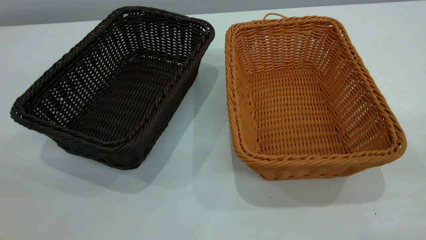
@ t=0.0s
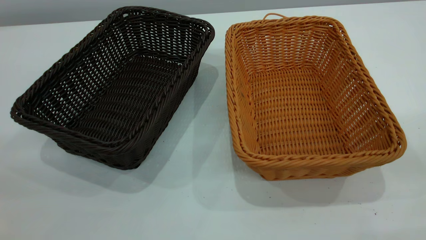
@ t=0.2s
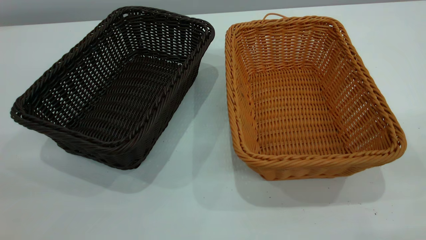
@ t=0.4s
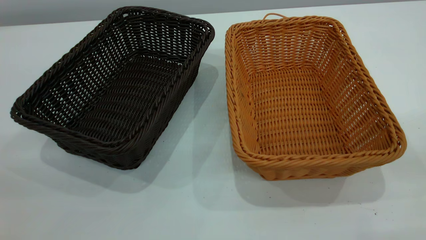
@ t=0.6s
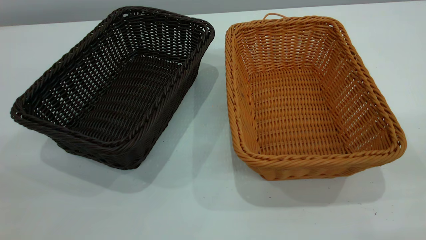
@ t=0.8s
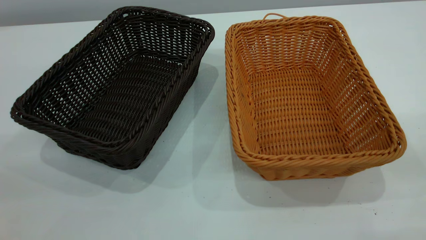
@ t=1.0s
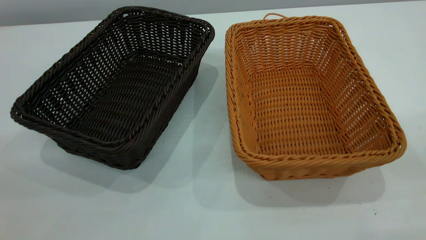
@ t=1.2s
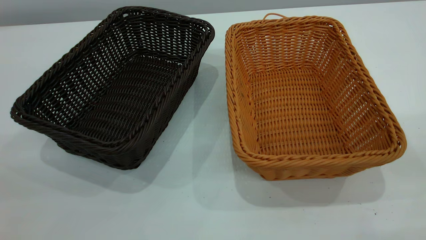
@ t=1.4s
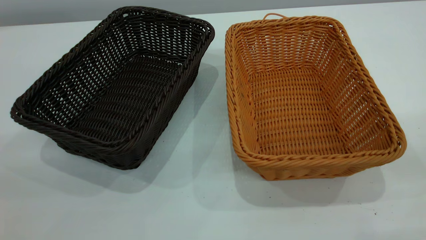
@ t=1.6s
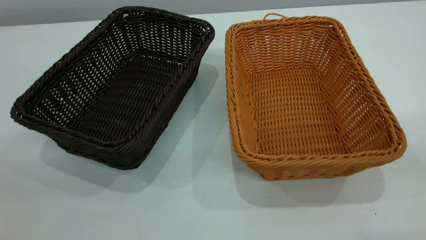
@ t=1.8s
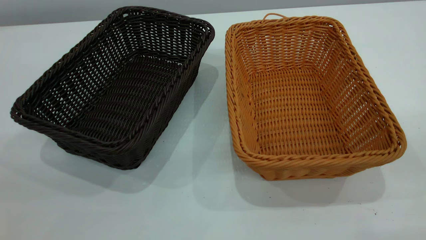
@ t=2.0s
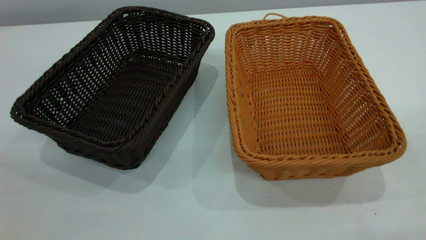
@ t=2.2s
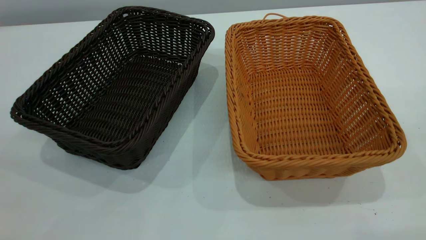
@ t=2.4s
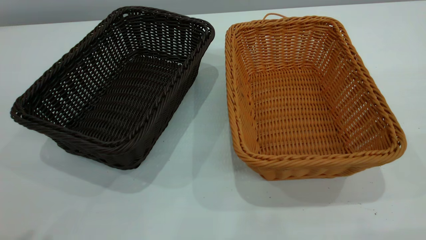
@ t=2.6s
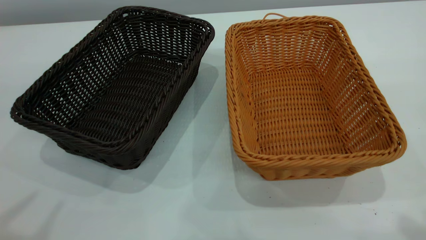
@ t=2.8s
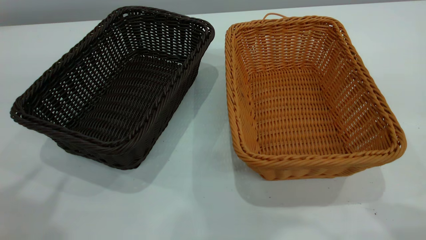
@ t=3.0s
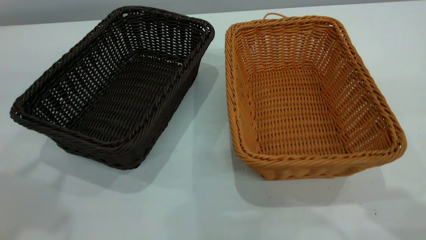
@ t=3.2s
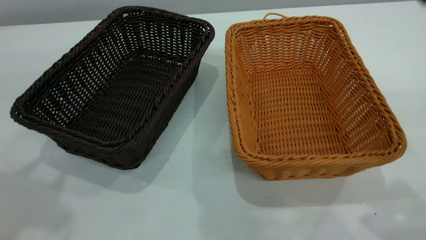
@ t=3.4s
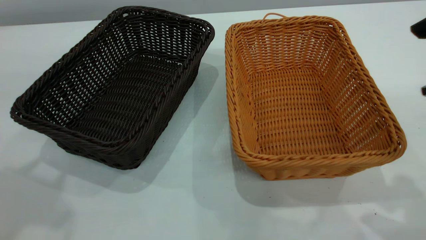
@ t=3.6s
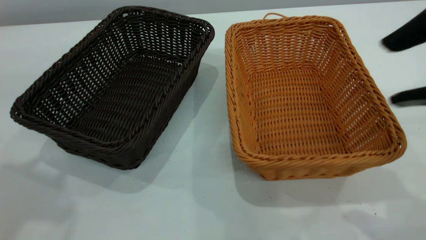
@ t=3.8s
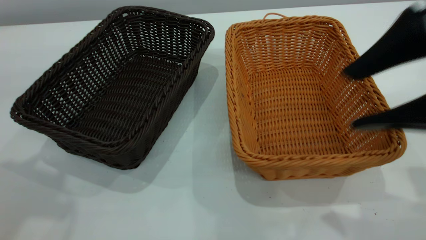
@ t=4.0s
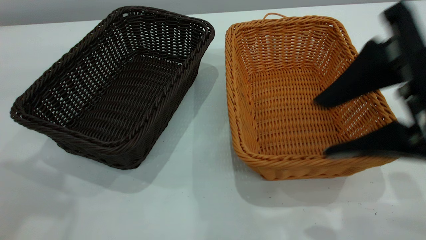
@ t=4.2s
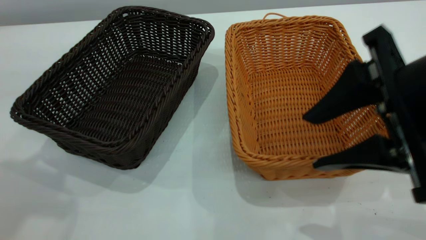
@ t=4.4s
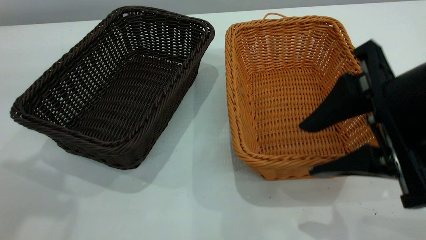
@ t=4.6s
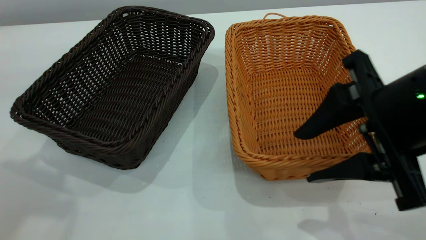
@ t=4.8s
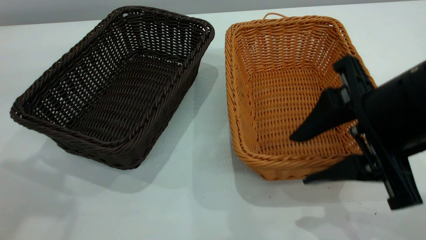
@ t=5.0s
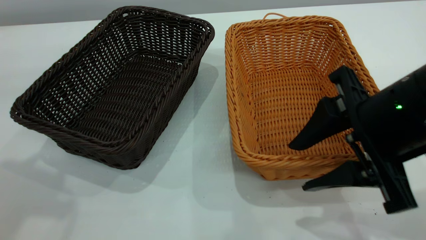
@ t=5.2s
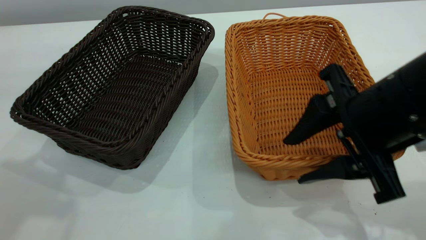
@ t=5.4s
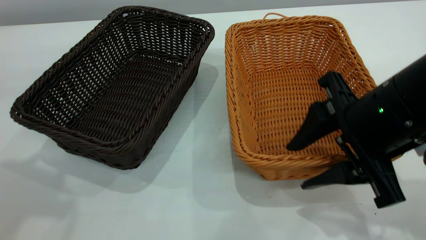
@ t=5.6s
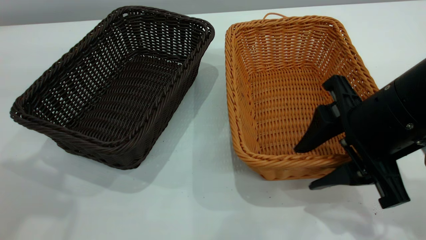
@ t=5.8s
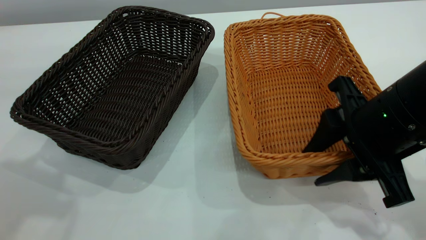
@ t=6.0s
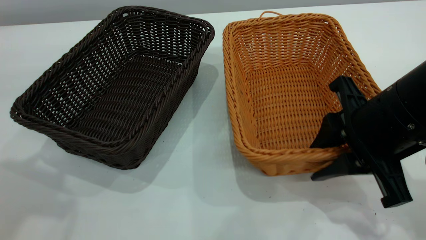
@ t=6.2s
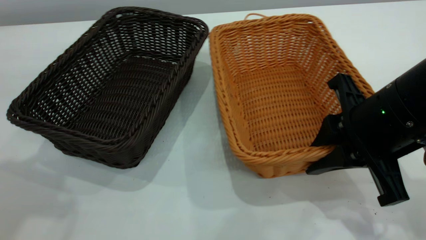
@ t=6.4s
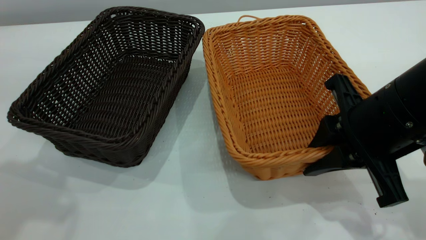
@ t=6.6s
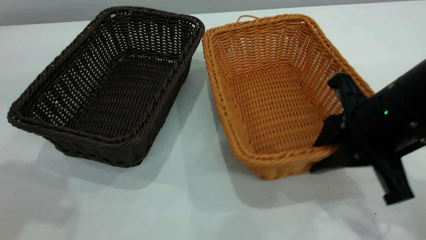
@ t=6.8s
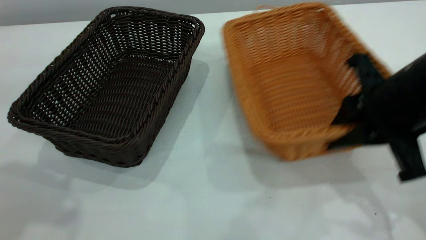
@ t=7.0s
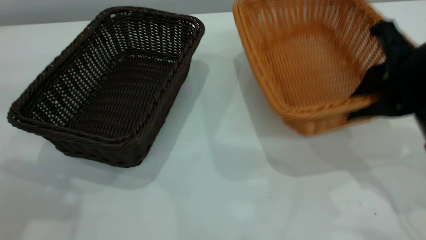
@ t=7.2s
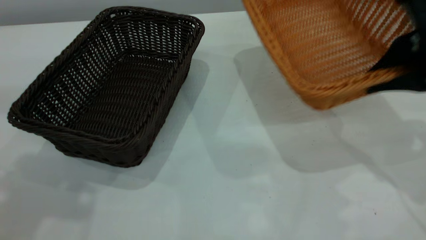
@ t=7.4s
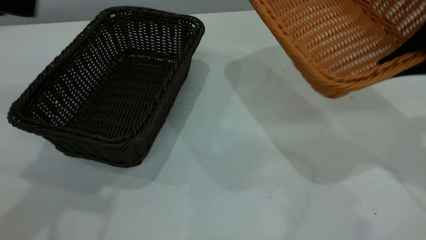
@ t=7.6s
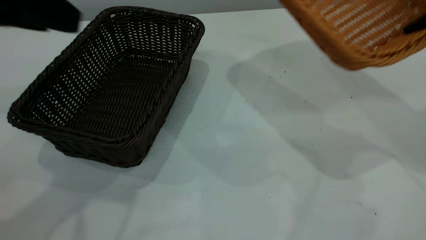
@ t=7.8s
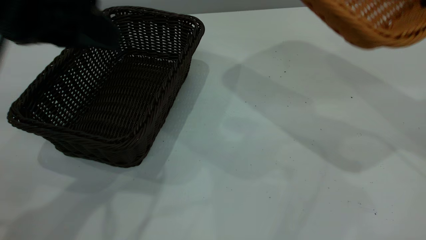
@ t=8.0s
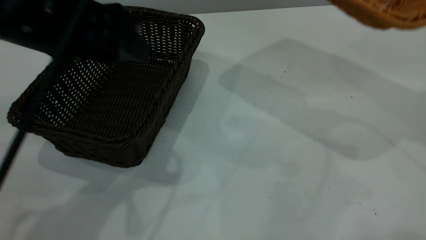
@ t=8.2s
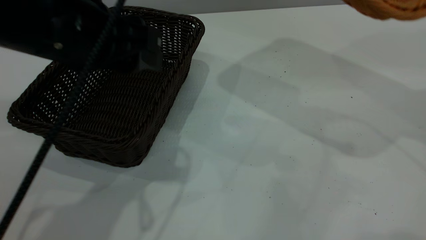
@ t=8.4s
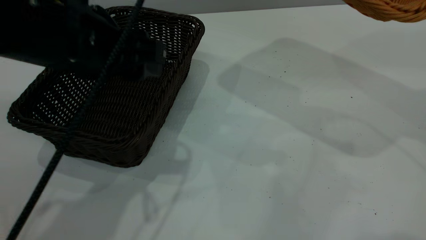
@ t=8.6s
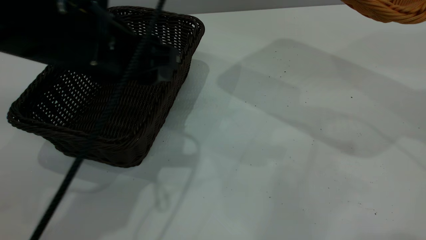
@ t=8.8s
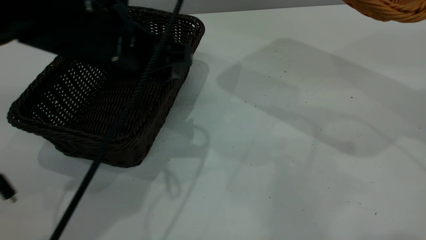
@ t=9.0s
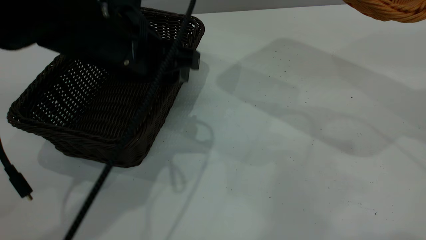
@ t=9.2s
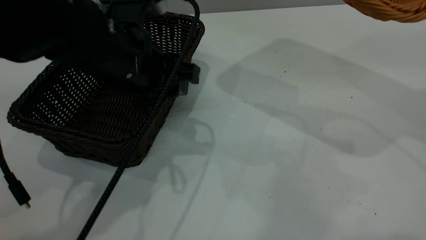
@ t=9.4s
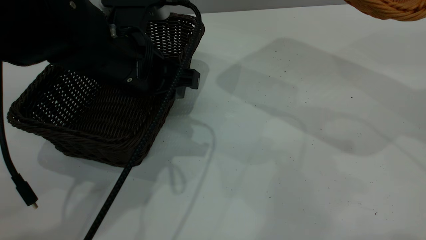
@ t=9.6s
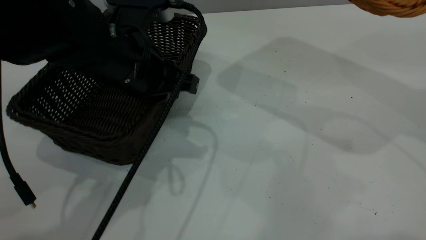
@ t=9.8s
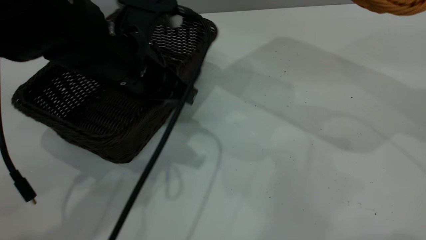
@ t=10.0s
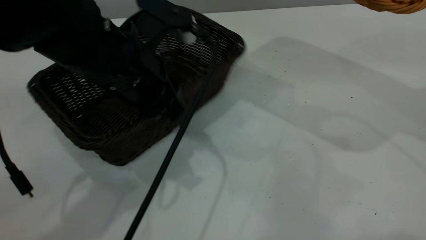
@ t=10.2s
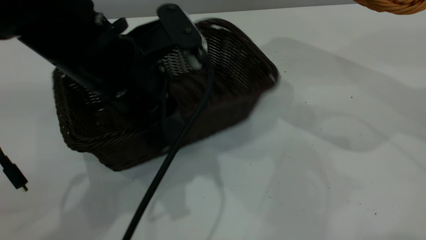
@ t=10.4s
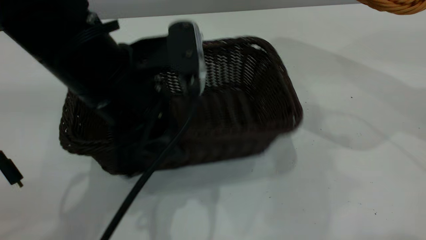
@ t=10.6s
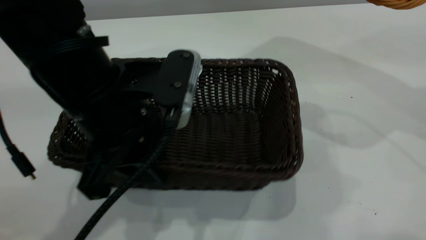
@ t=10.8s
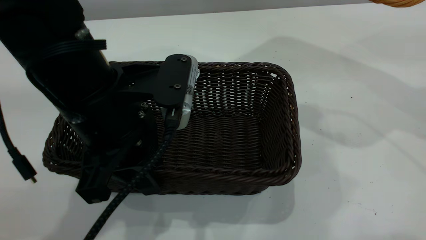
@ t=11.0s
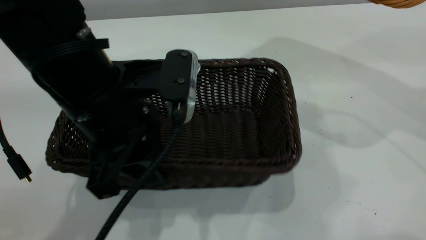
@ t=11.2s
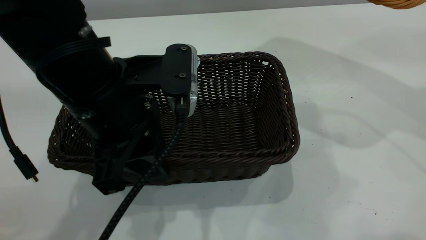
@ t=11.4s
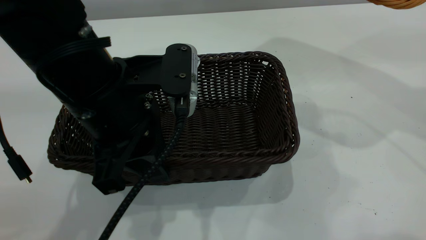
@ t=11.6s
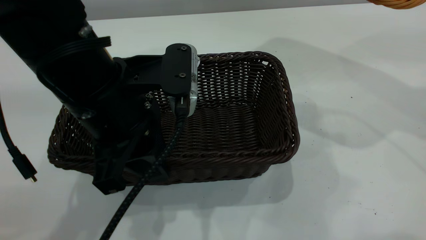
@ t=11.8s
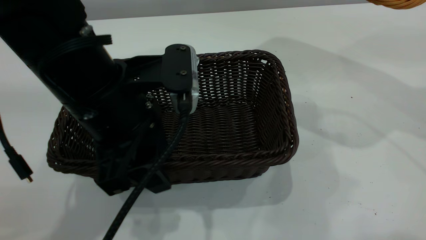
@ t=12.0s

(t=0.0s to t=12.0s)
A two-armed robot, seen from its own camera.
Task of the whole recording: the left gripper grasp the black basket and place it in the center of the table, the right gripper grasp the brown basket and place it inside the black one.
Step, t=0.0s - t=7.0s: Pick up the light basket with the right gripper.
t=0.0s - t=1.6s: Neither gripper changes place.
t=1.6s - t=3.0s: The left gripper moves forward and upward, some 15 cm, and opens. Meanwhile the right gripper heads forward, covering approximately 15 cm, and opens its fingers.
t=3.0s - t=4.4s: The right gripper goes about 20 cm downward and to the left.
t=4.4s - t=6.0s: The right gripper heads downward, covering roughly 5 cm.
t=6.0s - t=7.6s: The left gripper moves downward, some 5 cm. Meanwhile the right gripper travels to the right and upward by roughly 15 cm, and closes.
t=7.6s - t=9.0s: The left gripper goes approximately 20 cm downward, to the right and forward, while the right gripper travels upward by approximately 10 cm.
t=9.0s - t=10.4s: The left gripper closes up.
t=10.4s - t=12.0s: The left gripper opens up.

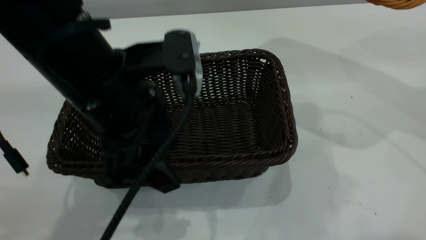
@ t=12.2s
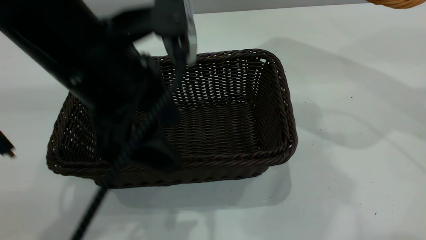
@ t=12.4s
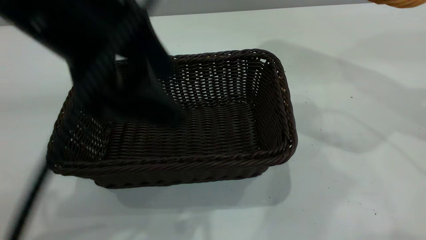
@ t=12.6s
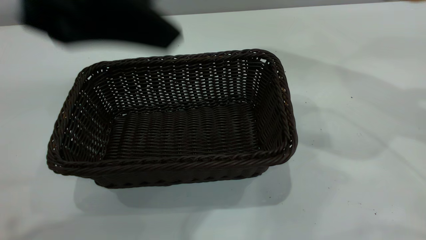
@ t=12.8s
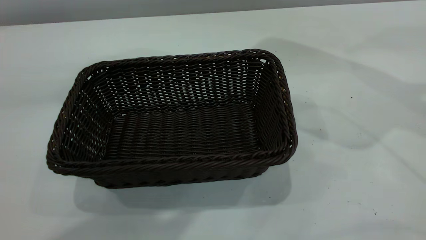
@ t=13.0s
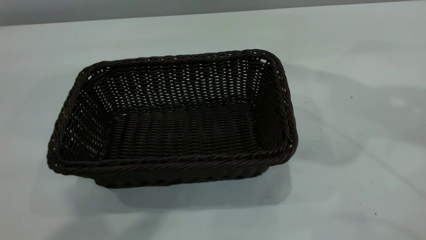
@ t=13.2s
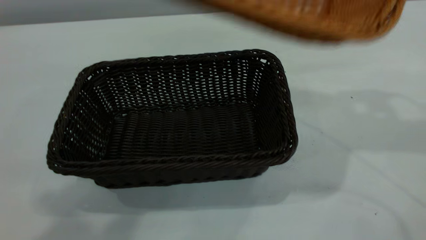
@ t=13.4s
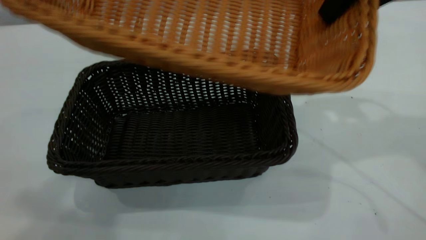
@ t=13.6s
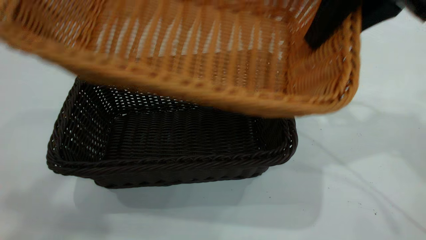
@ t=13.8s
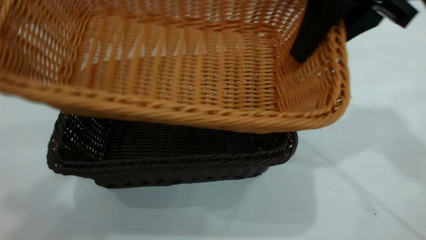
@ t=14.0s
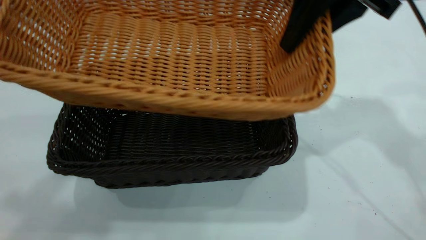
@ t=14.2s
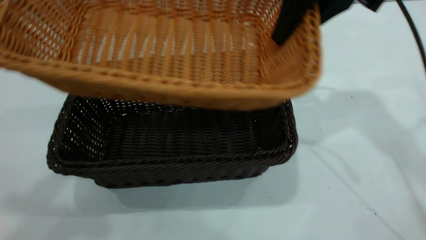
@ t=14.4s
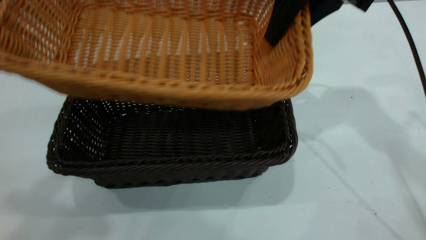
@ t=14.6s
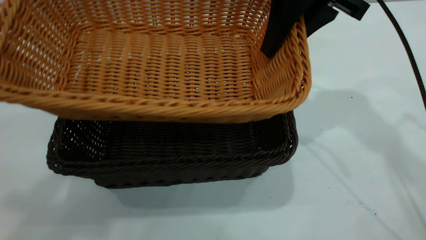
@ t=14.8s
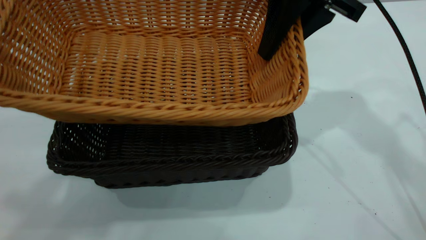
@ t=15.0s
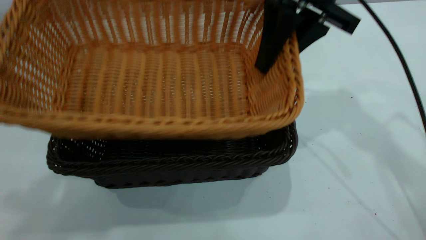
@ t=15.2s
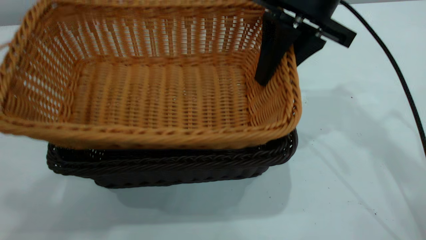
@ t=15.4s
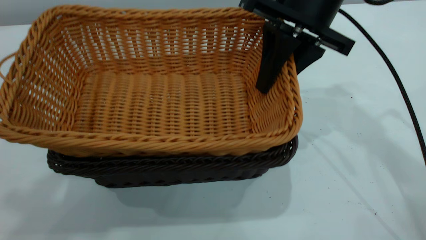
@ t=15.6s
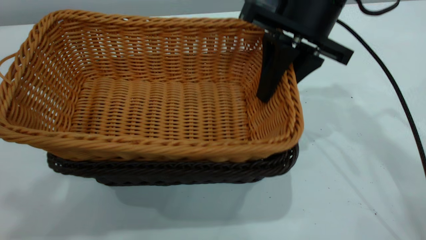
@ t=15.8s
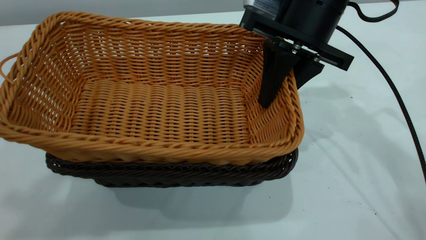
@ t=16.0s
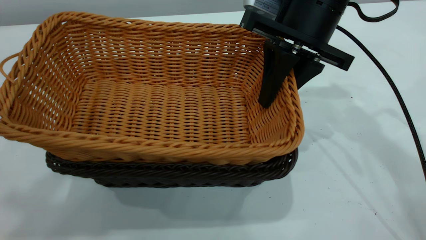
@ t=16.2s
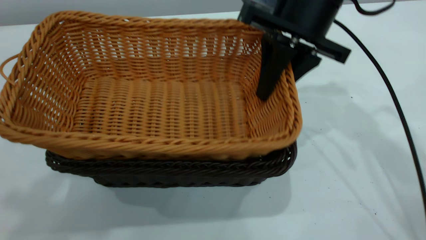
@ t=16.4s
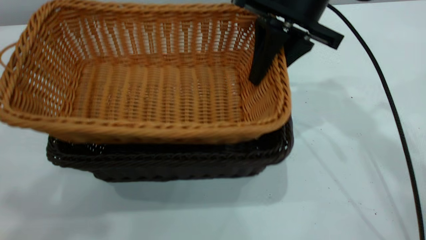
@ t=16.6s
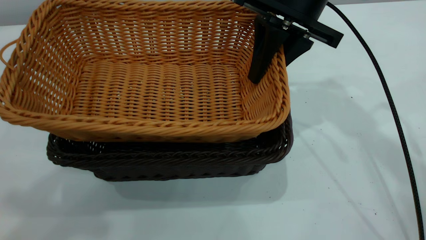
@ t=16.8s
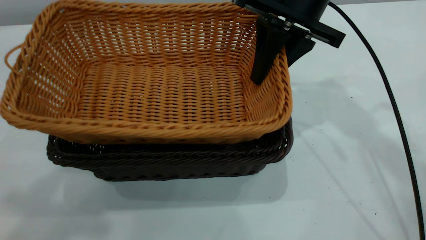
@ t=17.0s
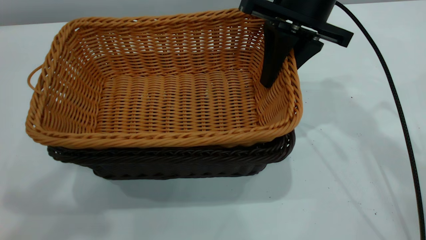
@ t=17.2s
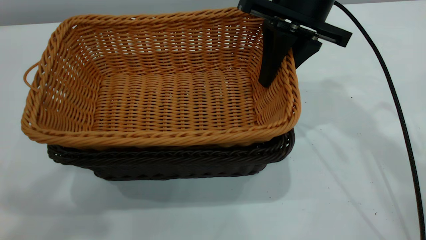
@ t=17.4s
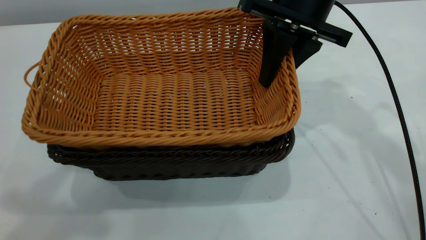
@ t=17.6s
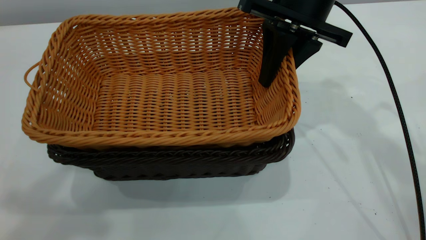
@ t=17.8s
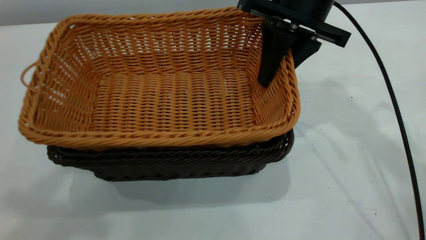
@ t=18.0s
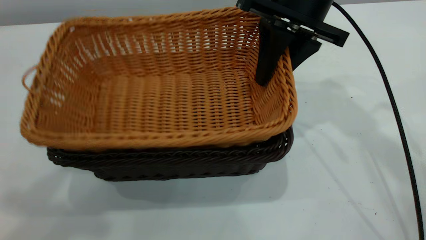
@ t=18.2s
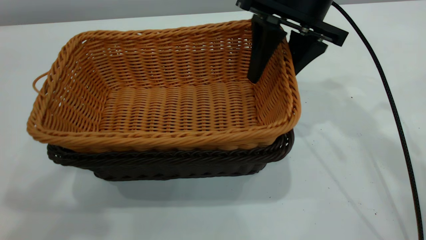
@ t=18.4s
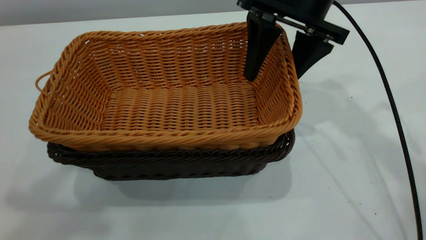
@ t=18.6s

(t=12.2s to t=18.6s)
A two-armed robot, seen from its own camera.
Task of the whole recording: the left gripper grasp the black basket and place it in the center of the table, the right gripper grasp the brown basket and place it inside the black one.
t=12.2s - t=13.8s: The right gripper moves to the left, approximately 15 cm; the left gripper shifts about 30 cm upward.
t=13.8s - t=15.4s: The right gripper moves to the left and downward, some 10 cm.
t=17.0s - t=18.6s: The right gripper opens its fingers.
